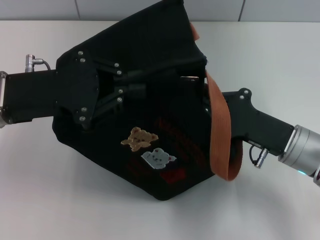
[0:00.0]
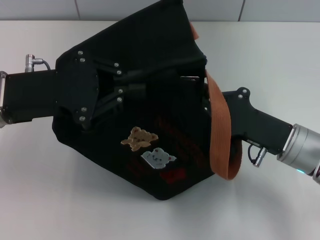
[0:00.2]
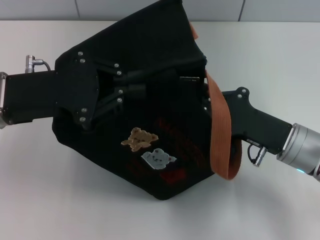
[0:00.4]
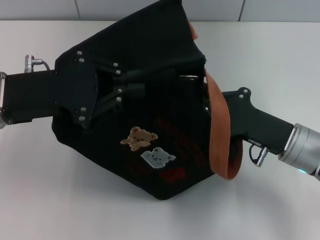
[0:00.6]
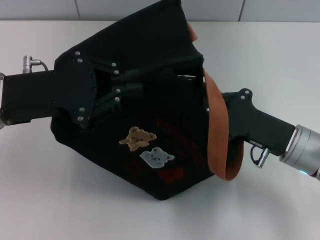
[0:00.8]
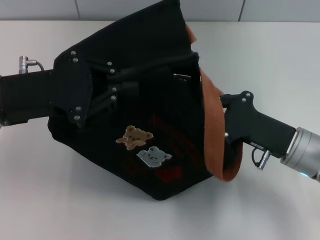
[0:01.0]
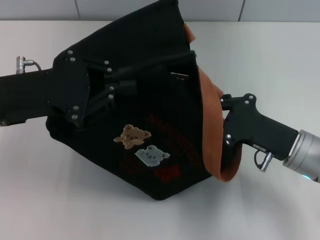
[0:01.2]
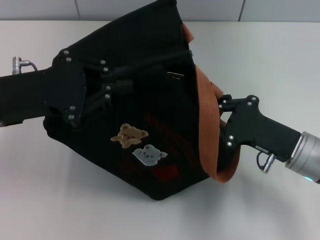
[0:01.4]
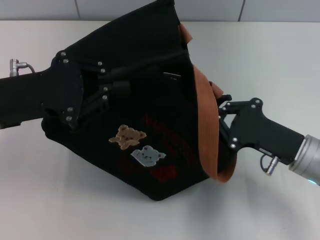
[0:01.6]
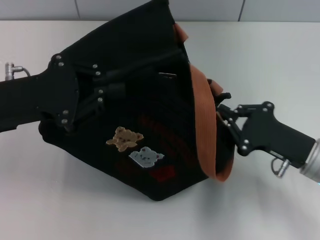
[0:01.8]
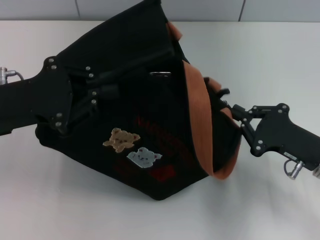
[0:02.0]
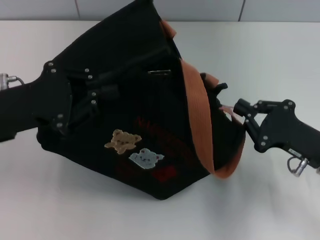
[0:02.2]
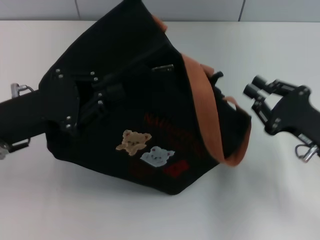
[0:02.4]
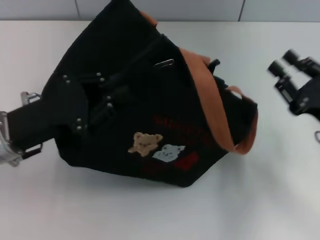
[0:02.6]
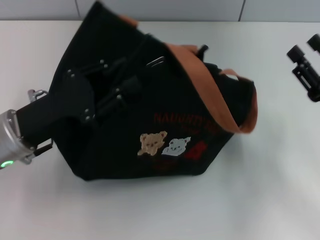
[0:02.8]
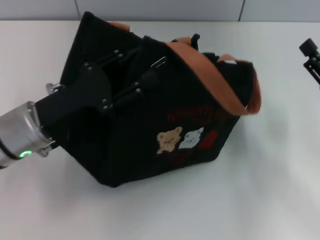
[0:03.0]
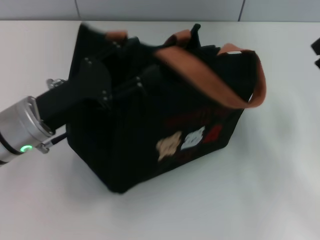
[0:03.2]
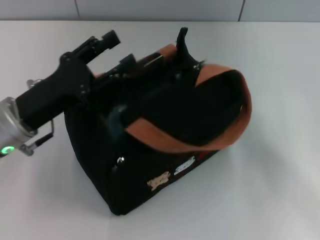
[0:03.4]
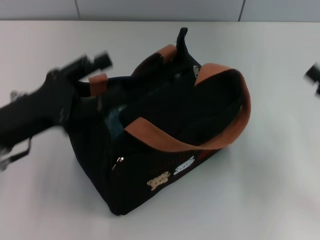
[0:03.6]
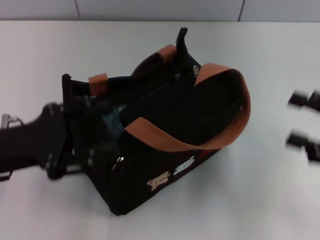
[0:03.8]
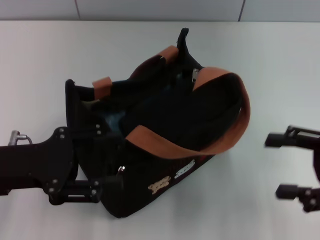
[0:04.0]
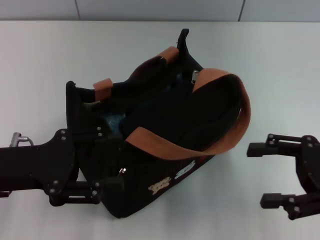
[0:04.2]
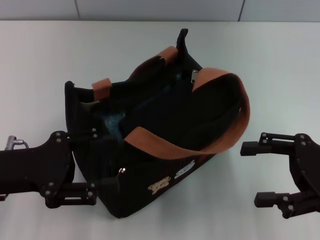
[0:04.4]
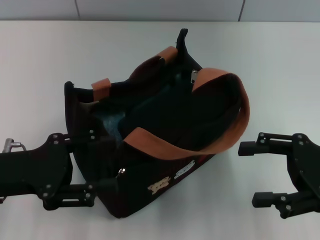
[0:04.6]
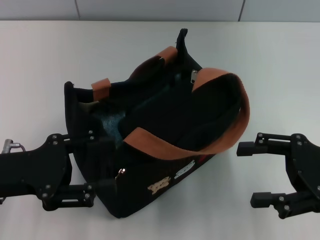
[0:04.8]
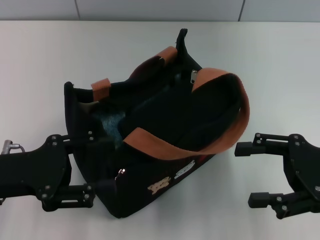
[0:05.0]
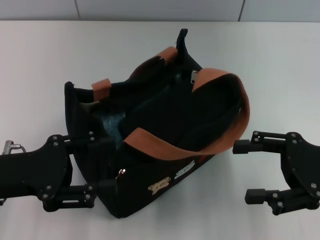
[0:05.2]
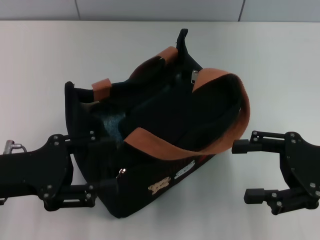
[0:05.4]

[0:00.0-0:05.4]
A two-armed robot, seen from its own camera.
Step, 0:00.0 to 0:02.2: Pull open the zipper with your right hand.
Step, 0:02.4 to 0:03.4: Grab the bag with your left hand.
0:00.0 to 0:01.4: The grippers move only a little.
0:01.4 to 0:02.8: The left gripper heads downward, covering roughly 5 cm; the right gripper heads to the right, covering about 5 cm, and opens up.
0:02.8 to 0:04.0: The right gripper heads upward, covering roughly 5 cm, and opens its fingers. The left gripper changes place by approximately 5 cm, and opens up.
0:04.0 to 0:05.4: The grippers make only small movements.

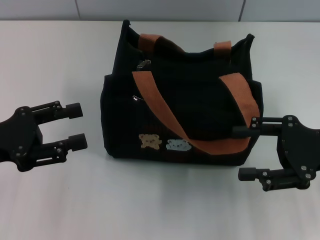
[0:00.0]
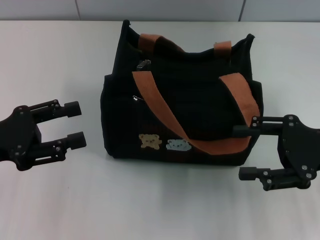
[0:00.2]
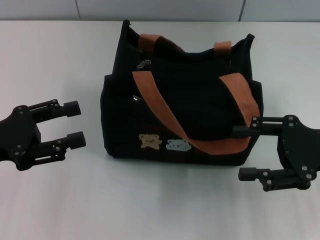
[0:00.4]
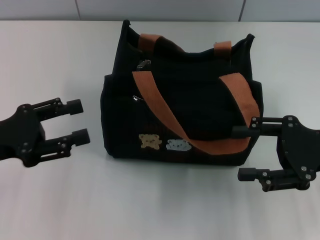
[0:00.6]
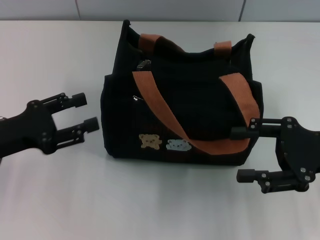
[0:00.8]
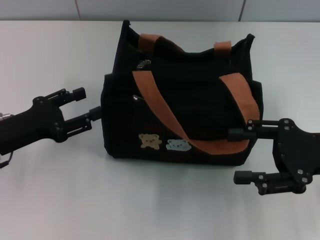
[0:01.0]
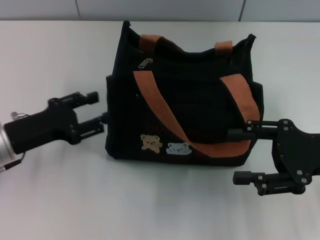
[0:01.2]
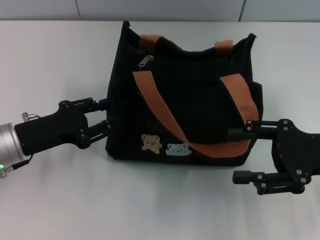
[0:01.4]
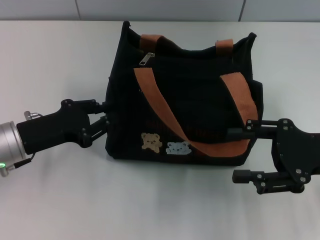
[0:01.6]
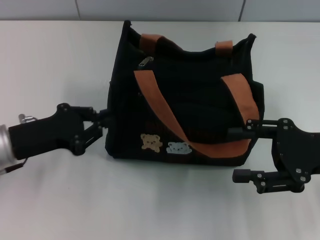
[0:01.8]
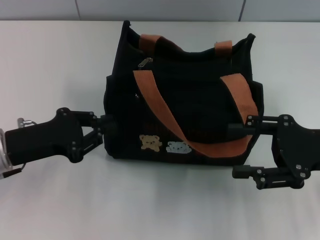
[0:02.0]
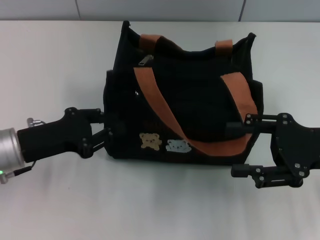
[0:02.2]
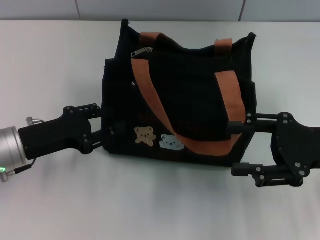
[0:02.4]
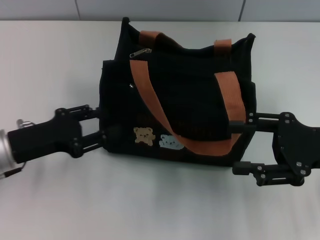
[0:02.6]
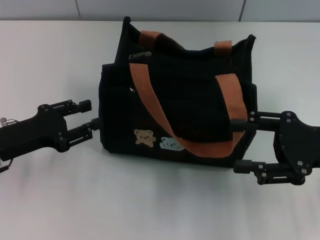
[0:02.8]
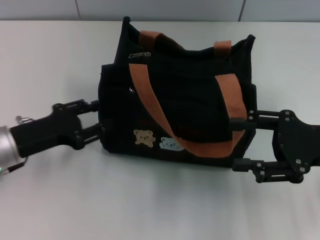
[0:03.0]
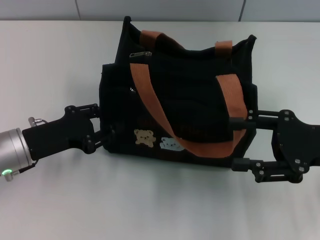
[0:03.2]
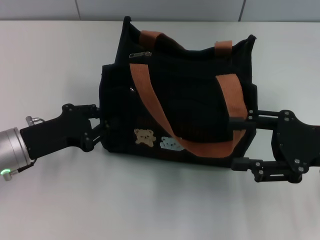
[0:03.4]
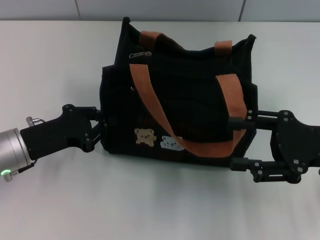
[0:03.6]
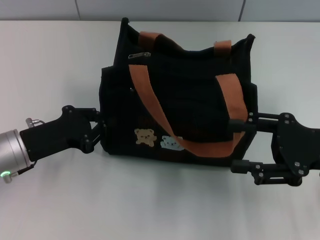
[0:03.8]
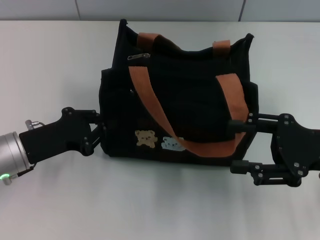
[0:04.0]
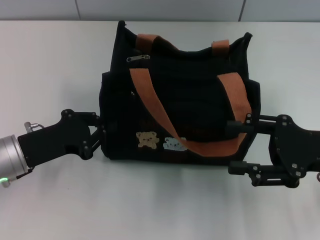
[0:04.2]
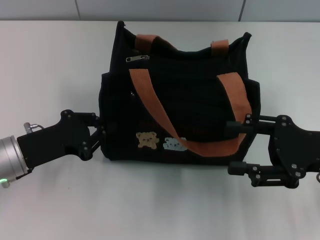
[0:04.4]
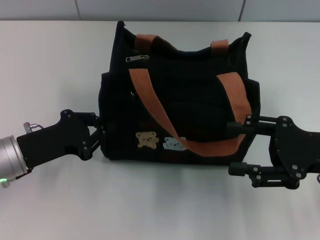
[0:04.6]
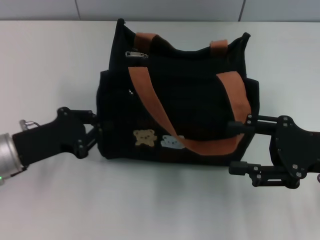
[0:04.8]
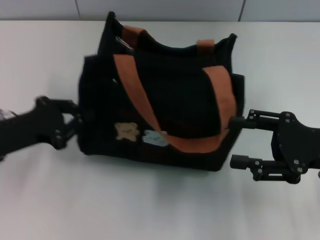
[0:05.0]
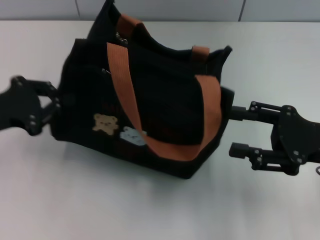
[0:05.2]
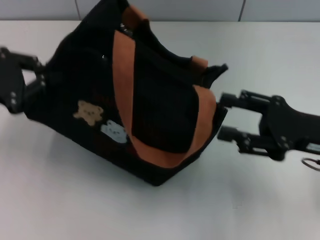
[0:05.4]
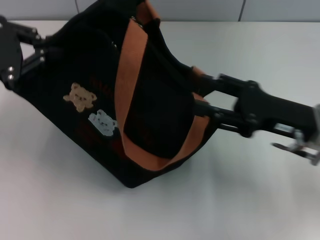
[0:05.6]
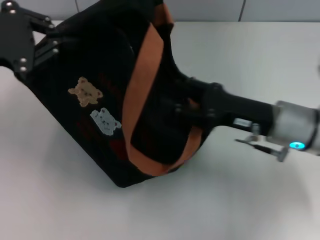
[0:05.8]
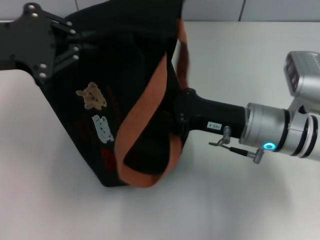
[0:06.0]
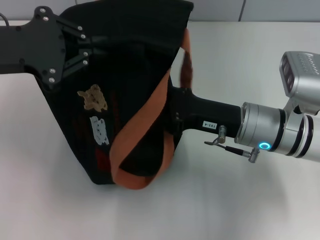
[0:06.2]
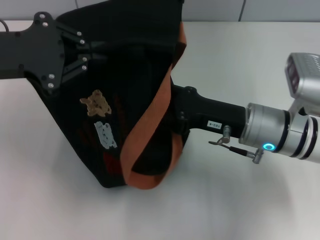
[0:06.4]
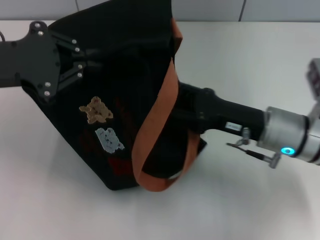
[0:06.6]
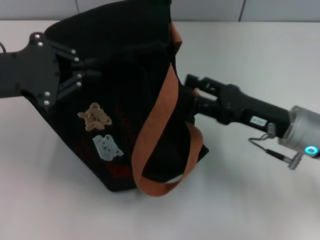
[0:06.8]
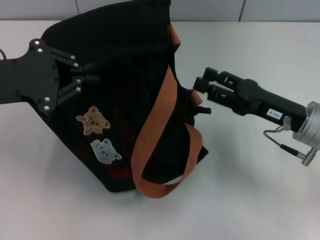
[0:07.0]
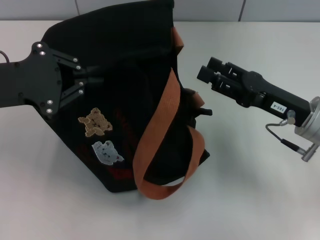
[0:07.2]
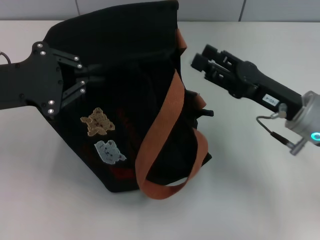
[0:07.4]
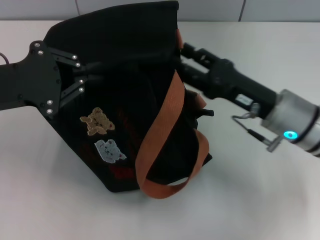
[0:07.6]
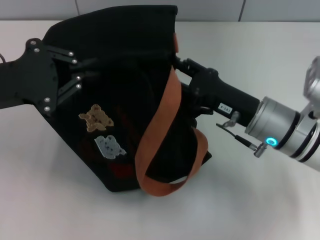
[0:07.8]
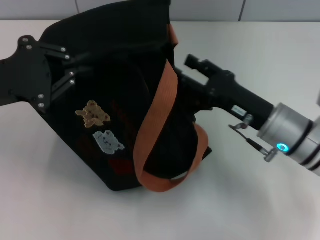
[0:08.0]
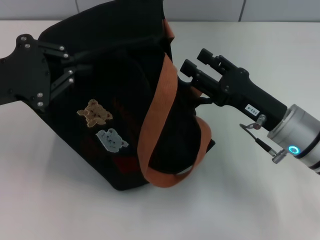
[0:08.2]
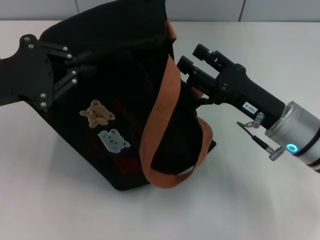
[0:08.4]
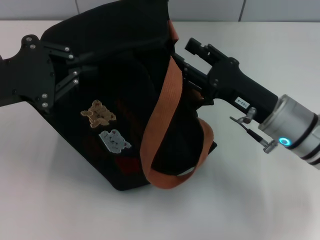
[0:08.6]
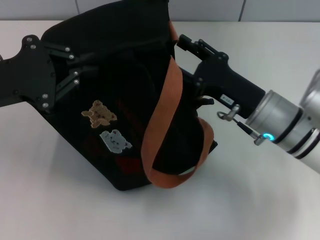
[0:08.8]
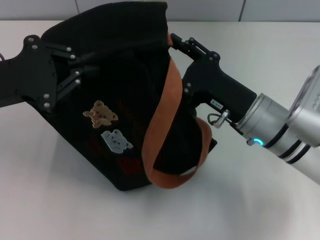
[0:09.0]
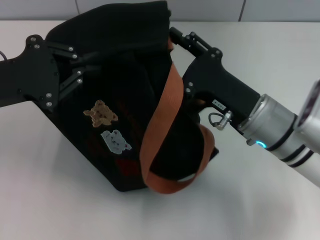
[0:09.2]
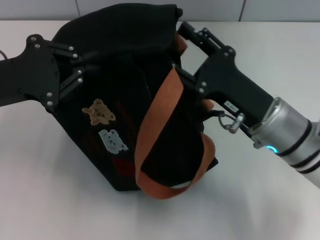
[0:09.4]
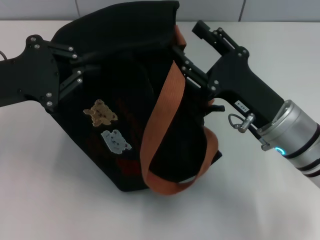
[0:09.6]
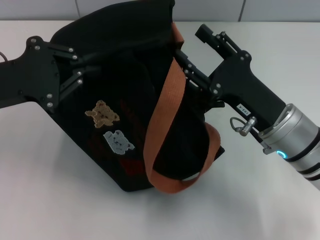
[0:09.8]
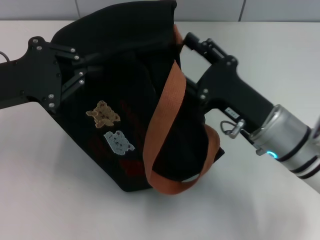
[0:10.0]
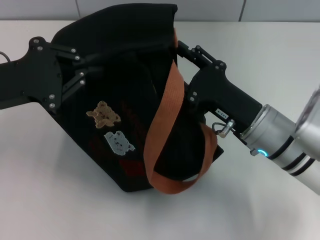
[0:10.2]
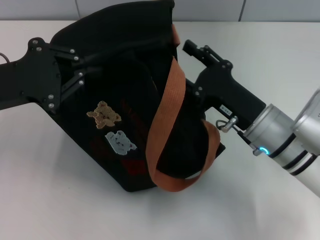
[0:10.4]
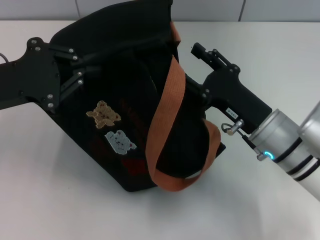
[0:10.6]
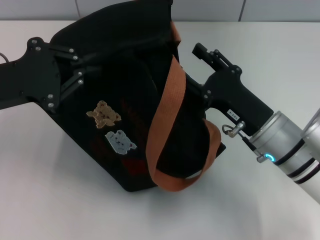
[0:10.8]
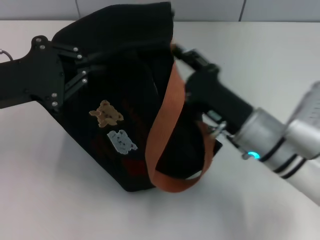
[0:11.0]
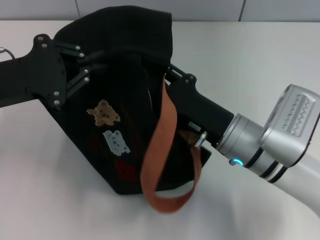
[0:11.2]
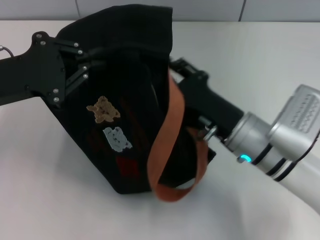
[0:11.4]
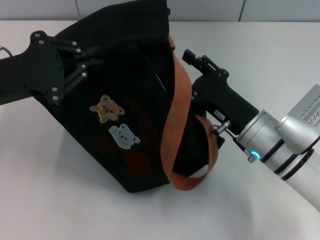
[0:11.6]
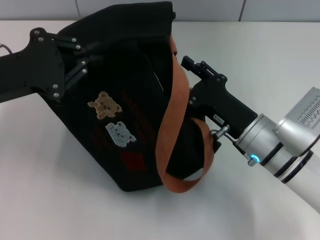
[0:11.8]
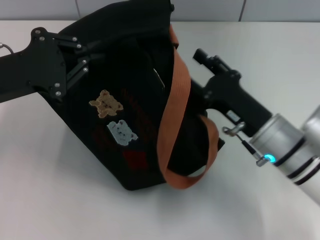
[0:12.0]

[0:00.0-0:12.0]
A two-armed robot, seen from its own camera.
0:00.0 to 0:01.6: The left gripper is displaced to the right by roughly 5 cm, and closes.
0:01.6 to 0:03.0: The left gripper closes and opens again.
0:03.0 to 0:04.4: The left gripper closes its fingers.
0:04.4 to 0:06.0: The right gripper moves to the left, roughly 10 cm. Meanwhile the left gripper goes about 15 cm upward.
0:06.0 to 0:07.6: The left gripper is displaced downward by about 5 cm.
0:09.0 to 0:12.0: There are only small adjustments of the grippers.

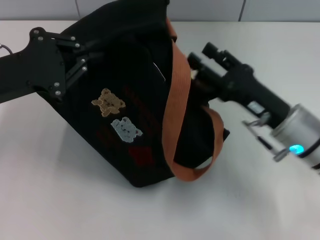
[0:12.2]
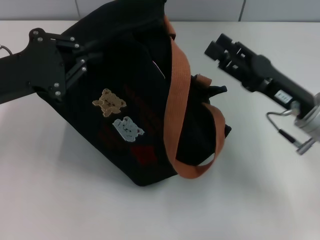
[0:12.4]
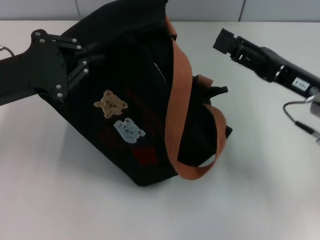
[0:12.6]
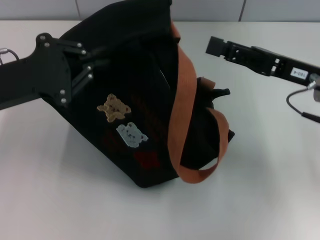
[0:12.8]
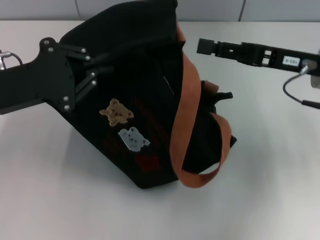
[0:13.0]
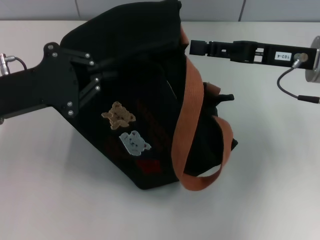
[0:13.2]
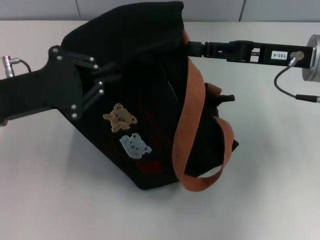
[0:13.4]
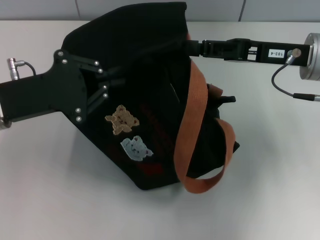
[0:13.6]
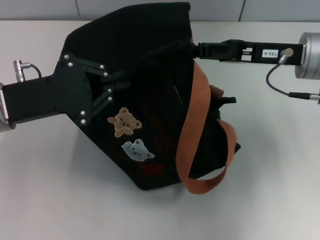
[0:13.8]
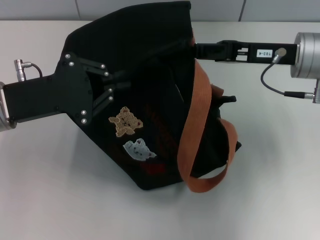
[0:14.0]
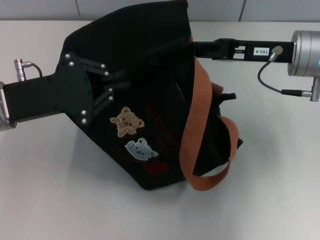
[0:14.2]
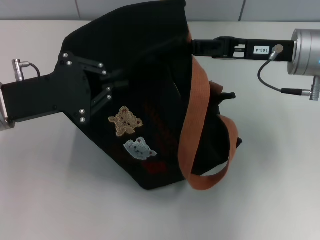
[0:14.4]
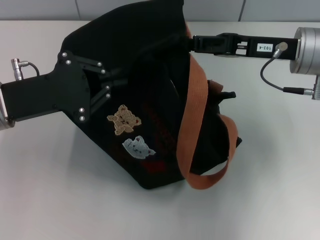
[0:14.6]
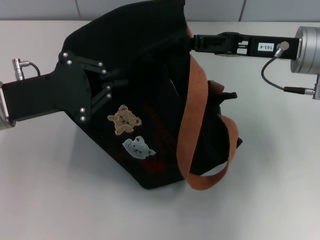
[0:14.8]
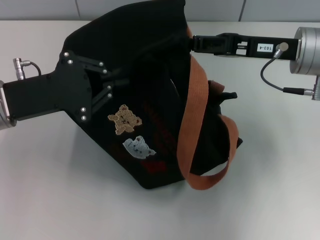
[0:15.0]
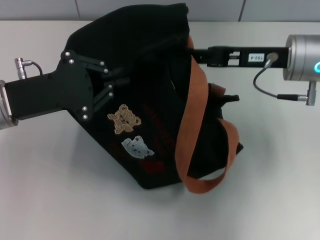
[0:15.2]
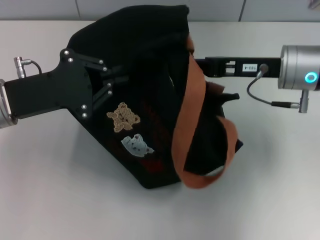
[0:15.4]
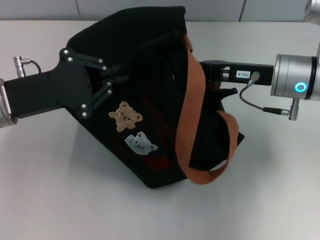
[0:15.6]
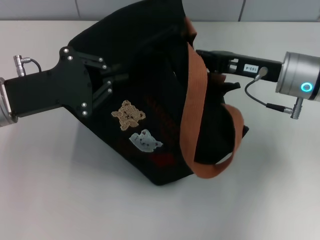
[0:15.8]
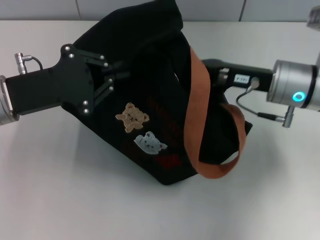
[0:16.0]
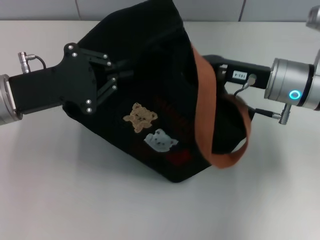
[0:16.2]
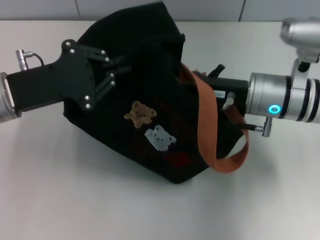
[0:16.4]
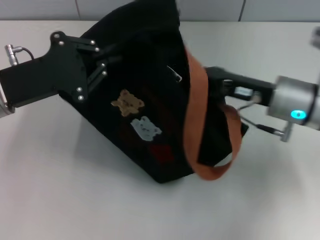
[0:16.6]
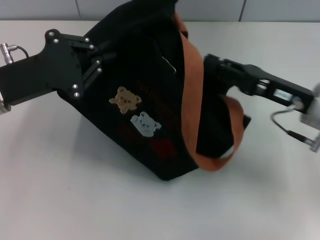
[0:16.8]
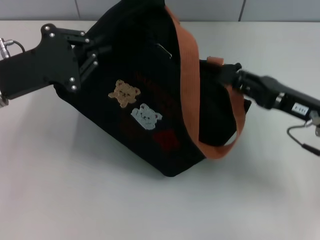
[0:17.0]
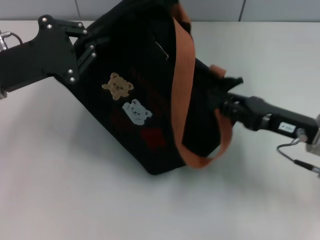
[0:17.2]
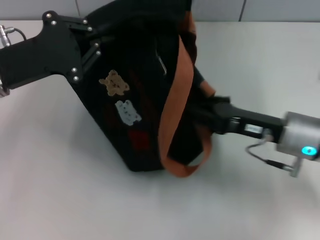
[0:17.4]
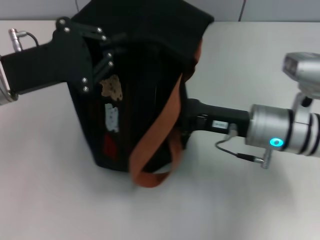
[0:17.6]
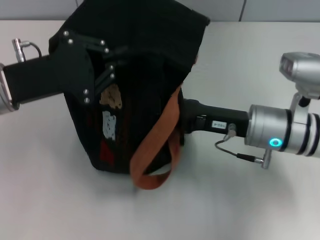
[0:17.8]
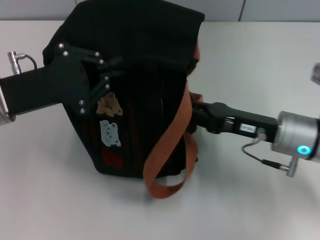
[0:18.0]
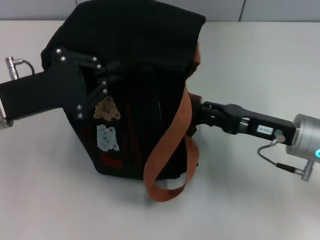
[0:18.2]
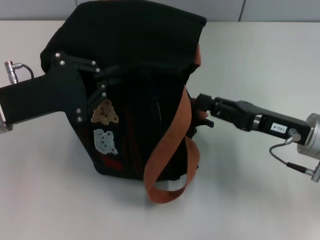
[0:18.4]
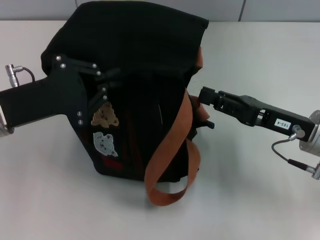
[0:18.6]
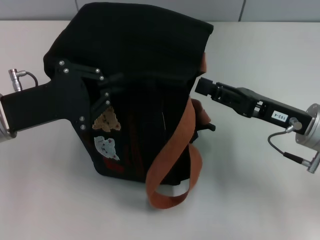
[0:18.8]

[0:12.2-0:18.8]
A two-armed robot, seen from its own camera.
0:12.2 to 0:13.8: The right gripper travels upward and forward by roughly 10 cm, and closes up.
0:13.8 to 0:15.4: The grippers move only a little.
0:15.4 to 0:17.2: The right gripper heads backward and downward, covering about 10 cm.
0:17.2 to 0:18.8: The right gripper reaches about 10 cm to the left, then returns.
